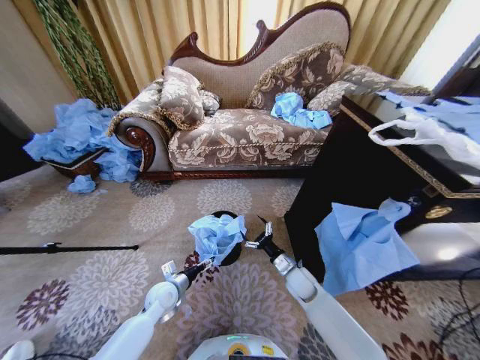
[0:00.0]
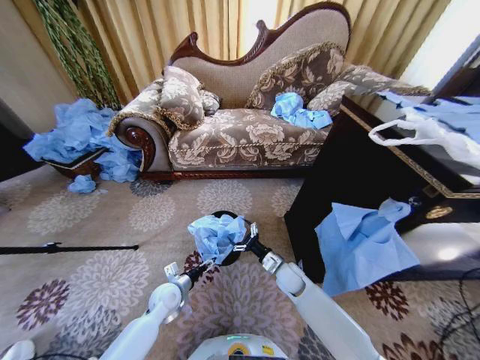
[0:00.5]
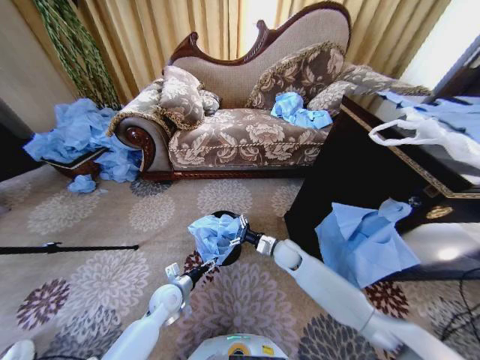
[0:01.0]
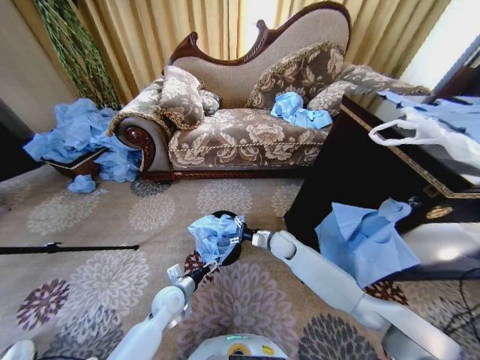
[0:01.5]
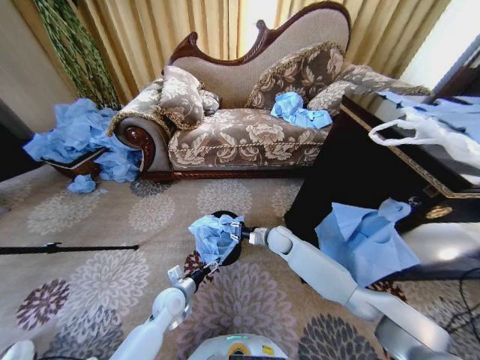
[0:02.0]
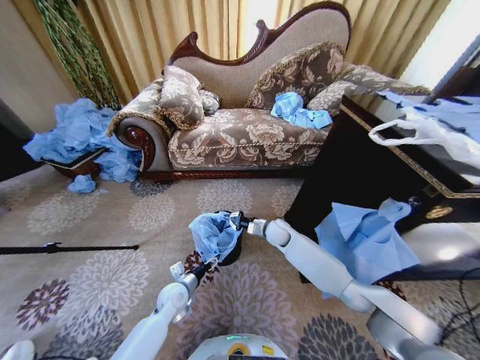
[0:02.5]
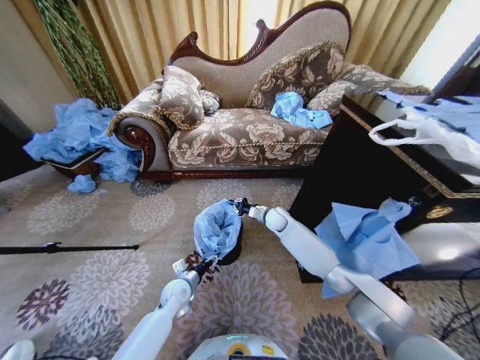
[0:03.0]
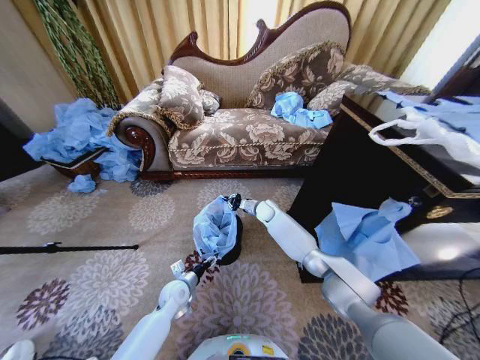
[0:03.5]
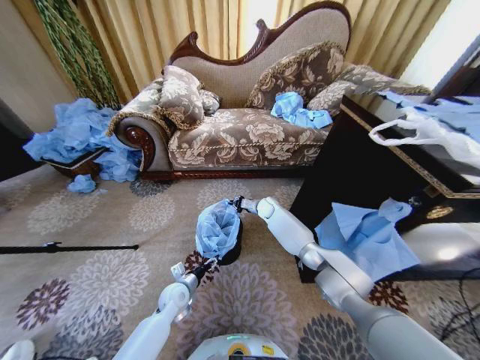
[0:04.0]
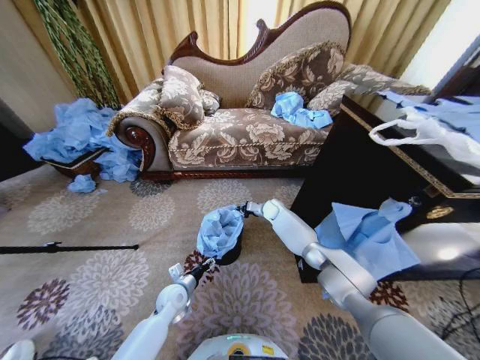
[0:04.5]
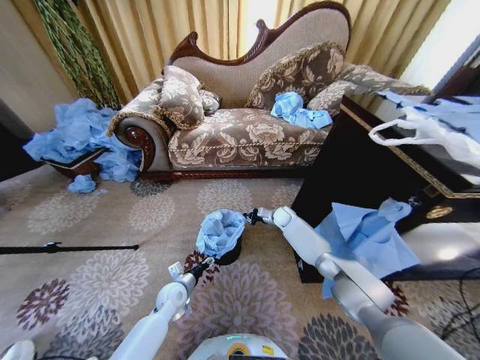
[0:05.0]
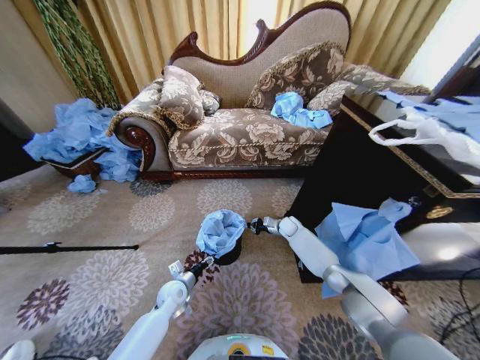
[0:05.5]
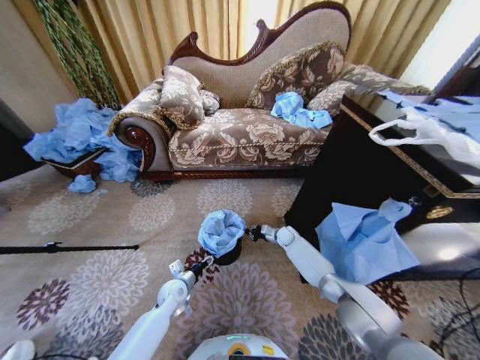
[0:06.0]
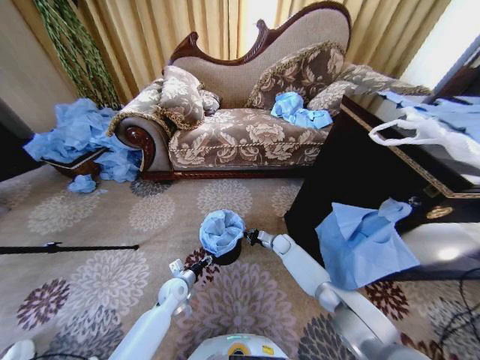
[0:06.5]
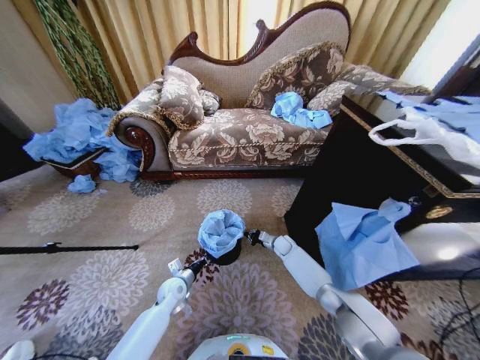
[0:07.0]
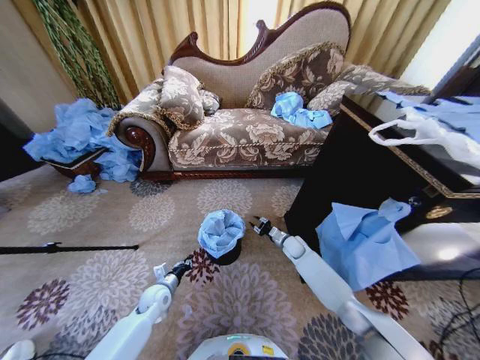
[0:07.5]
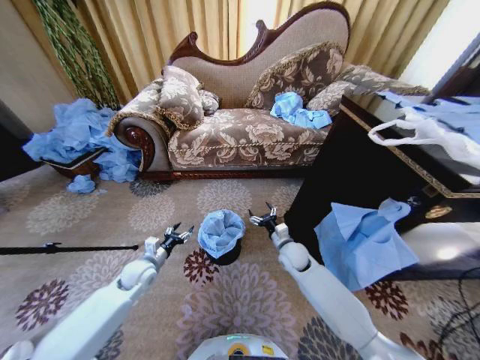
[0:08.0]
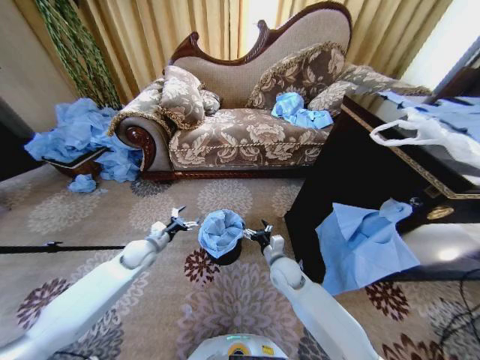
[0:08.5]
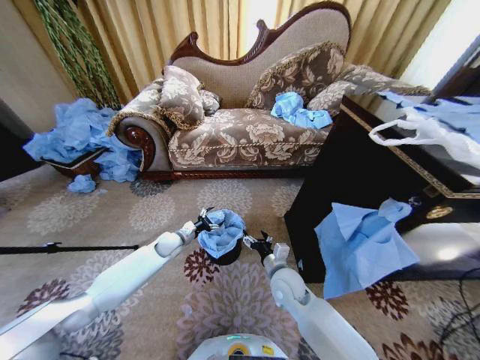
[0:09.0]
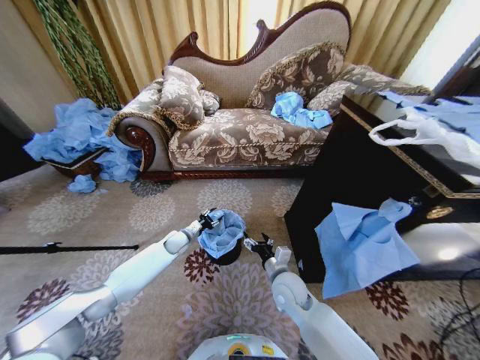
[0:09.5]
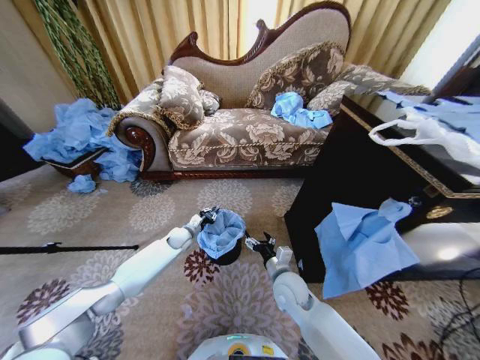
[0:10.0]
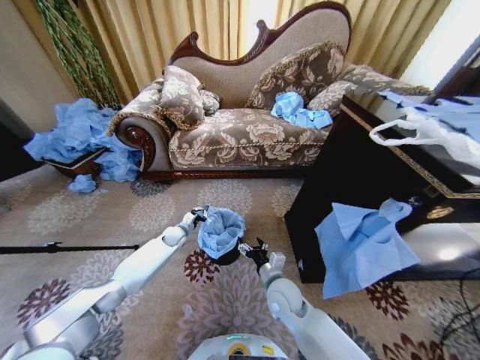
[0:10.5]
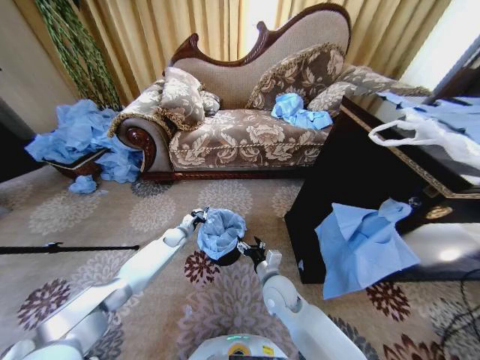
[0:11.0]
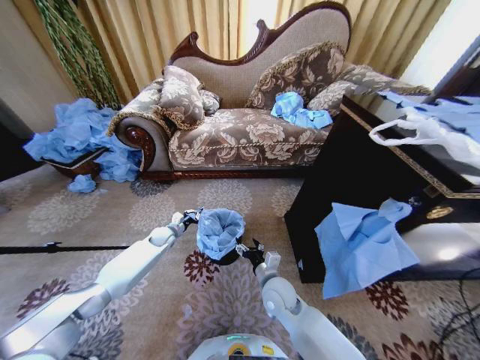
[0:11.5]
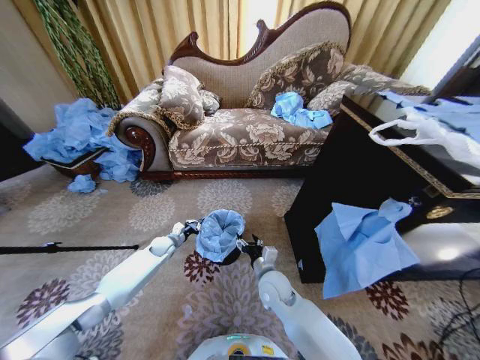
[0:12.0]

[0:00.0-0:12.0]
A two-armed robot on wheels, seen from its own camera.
Task of the whole recording: Place a garbage bag over the trash bin.
0:00.0 to 0:02.0: The right gripper heads forward, upward and to the left, covering approximately 15 cm, and closes.
0:02.0 to 0:04.0: The right gripper travels forward by some 15 cm.
0:04.0 to 0:06.0: The right gripper travels downward, to the right and backward by some 15 cm.
0:06.0 to 0:08.0: The right gripper travels backward and upward by roughly 15 cm, and opens up. The left gripper is displaced upward and to the left by some 15 cm, and closes, then reopens.
0:08.0 to 0:10.0: The left gripper shifts roughly 15 cm forward and to the right, and closes. The right gripper is displaced backward by some 10 cm.
0:10.0 to 0:12.0: The left gripper shifts roughly 10 cm to the left.

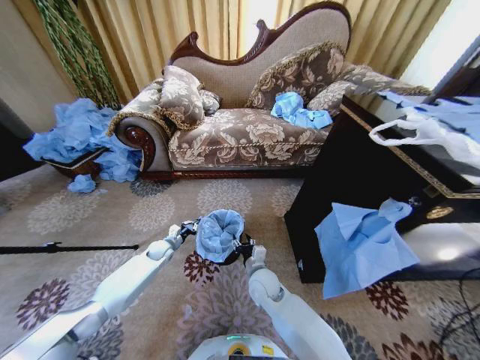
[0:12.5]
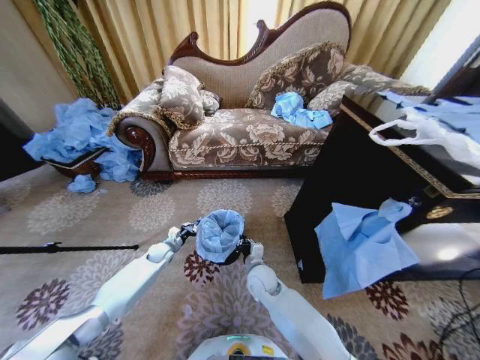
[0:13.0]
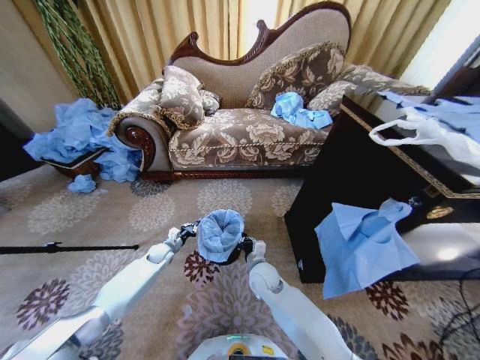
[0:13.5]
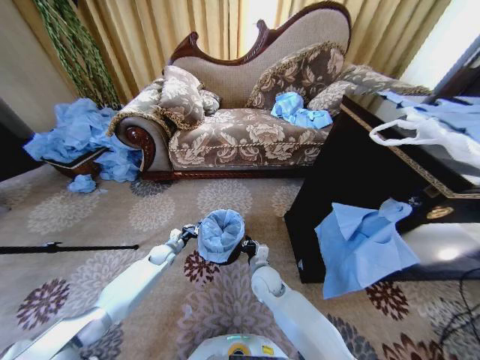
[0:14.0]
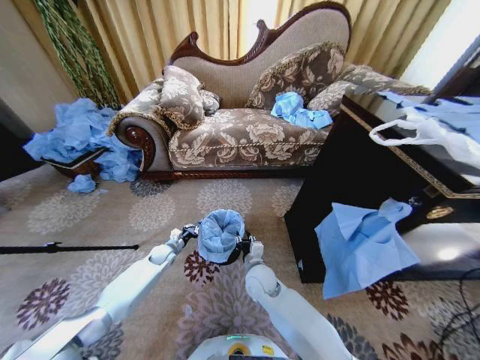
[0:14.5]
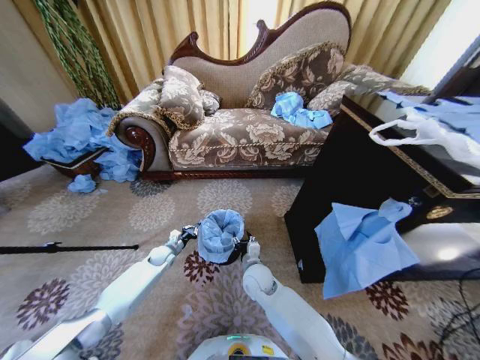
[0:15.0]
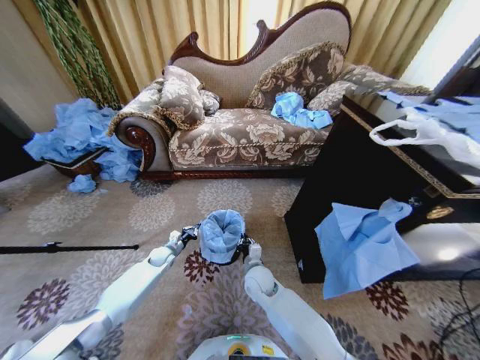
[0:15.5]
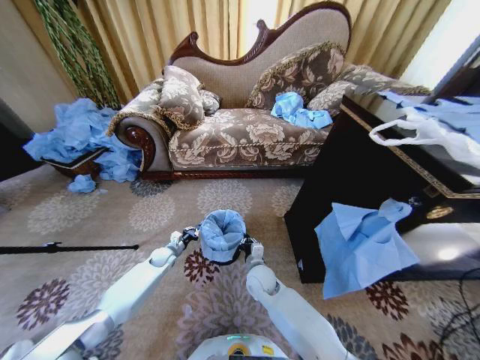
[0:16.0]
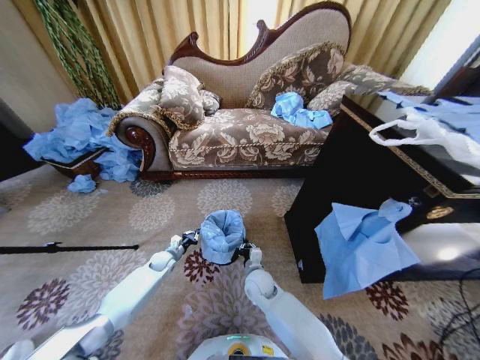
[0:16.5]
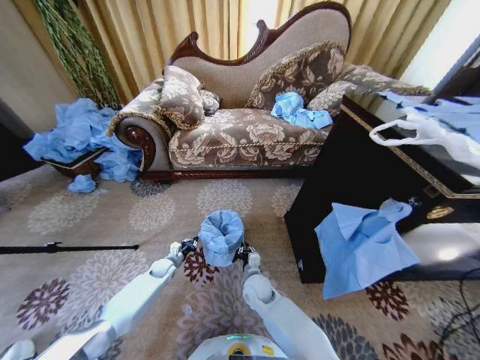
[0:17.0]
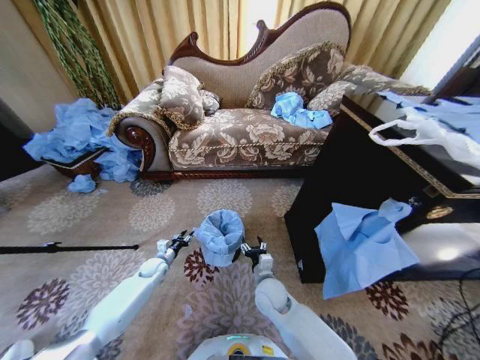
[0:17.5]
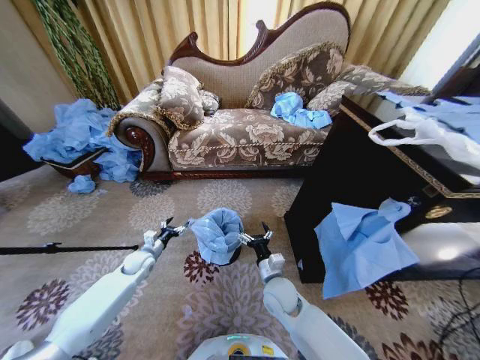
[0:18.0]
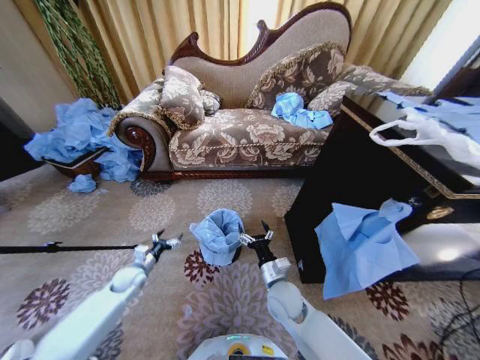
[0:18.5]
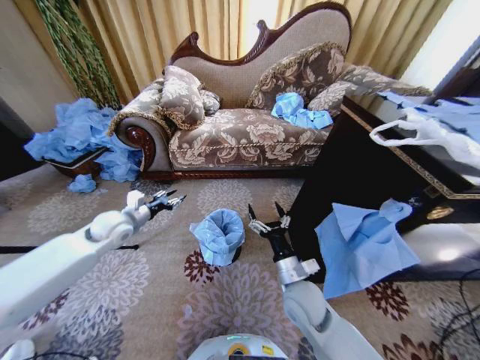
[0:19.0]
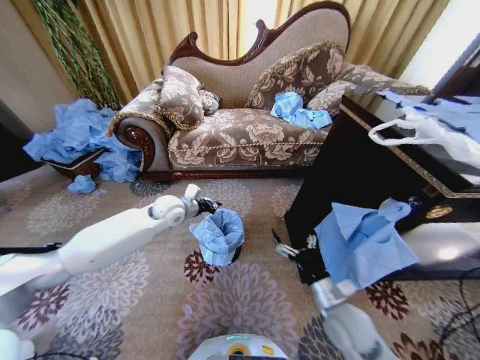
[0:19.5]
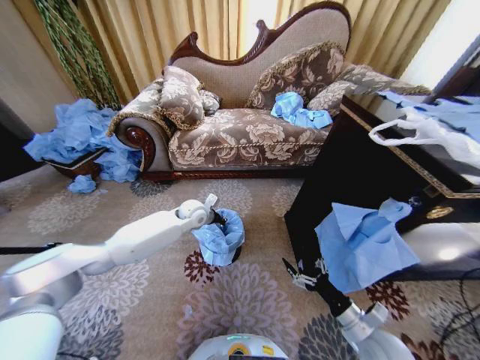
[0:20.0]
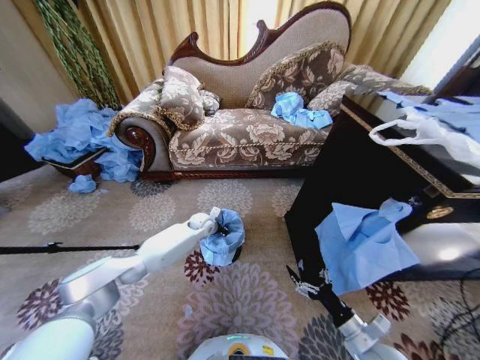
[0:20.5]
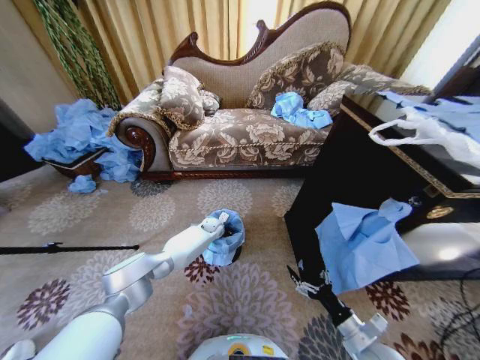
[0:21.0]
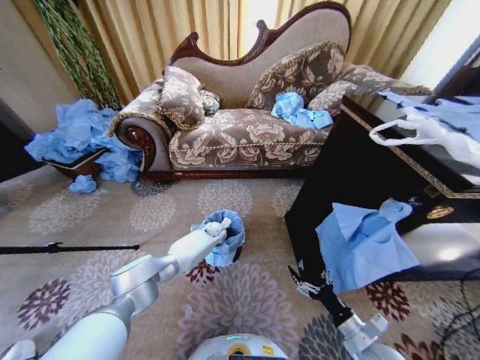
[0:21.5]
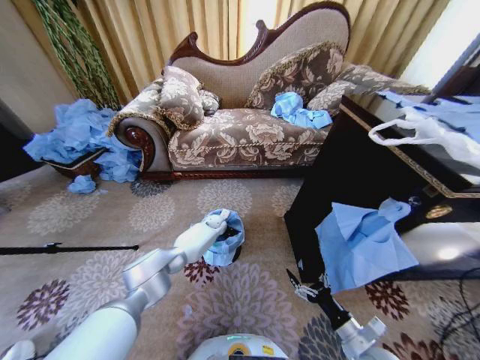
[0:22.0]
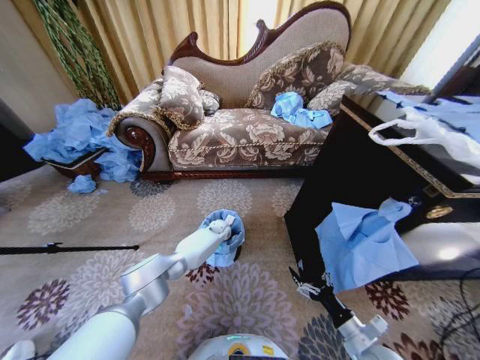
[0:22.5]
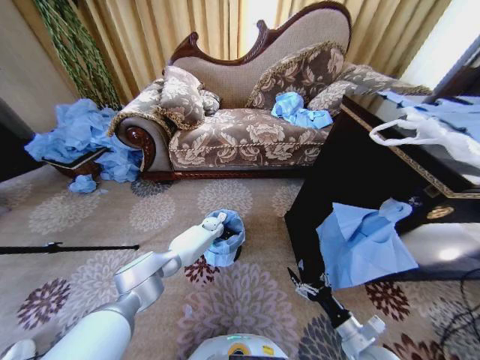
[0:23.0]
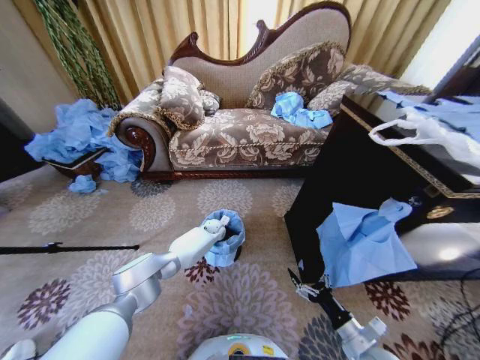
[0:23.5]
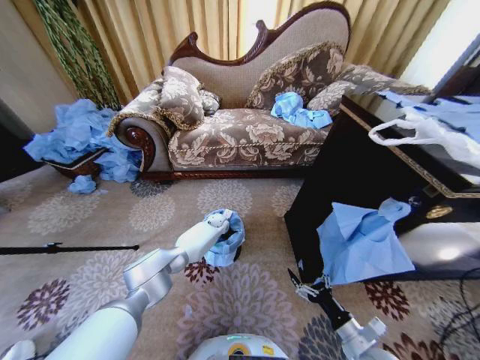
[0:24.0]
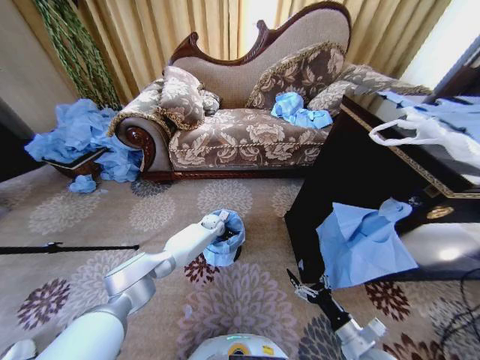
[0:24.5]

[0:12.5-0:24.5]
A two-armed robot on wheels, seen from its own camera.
Task of the whole recording: Place a garbage bag over the trash bin.
0:12.5 to 0:14.5: The right gripper closes, then reopens.
0:14.5 to 0:16.5: The right gripper travels downward by approximately 5 cm, and closes.
0:16.5 to 0:18.5: The right gripper goes roughly 10 cm upward, to the right and backward, and opens its fingers. Meanwhile the left gripper moves backward, to the left and upward, approximately 15 cm, and opens its fingers.
0:18.5 to 0:20.5: The left gripper heads to the right and forward, covering roughly 30 cm, reaches roughly 25 cm upward, then returns, and closes; the right gripper shifts roughly 25 cm to the right and backward.
0:20.5 to 0:22.5: The left gripper moves downward and to the right, roughly 10 cm.
0:22.5 to 0:24.5: The left gripper opens.

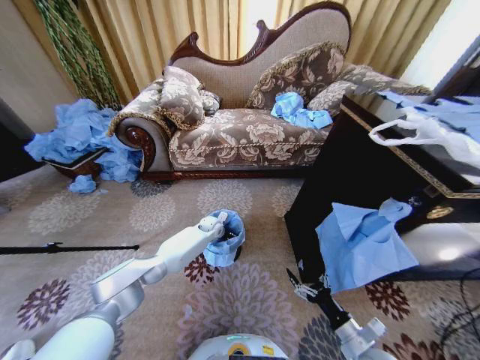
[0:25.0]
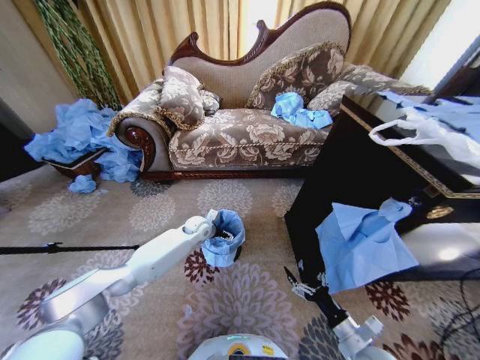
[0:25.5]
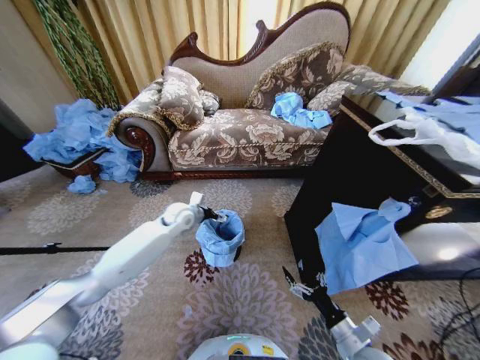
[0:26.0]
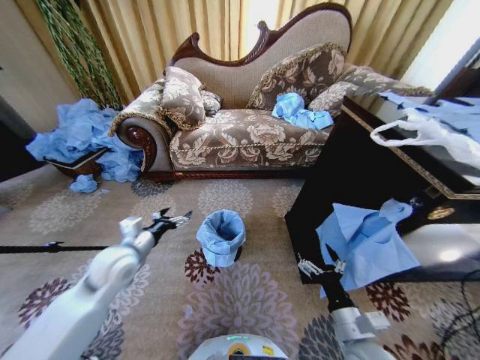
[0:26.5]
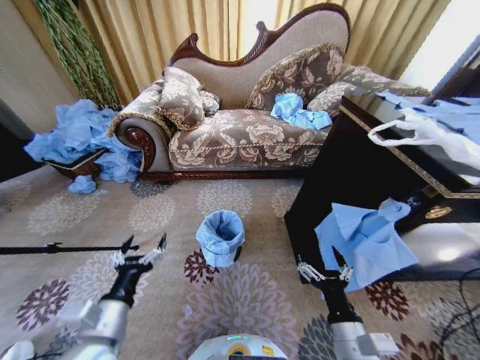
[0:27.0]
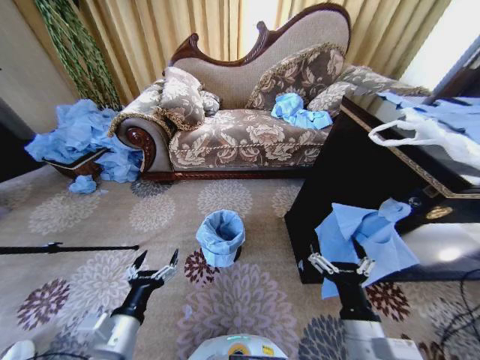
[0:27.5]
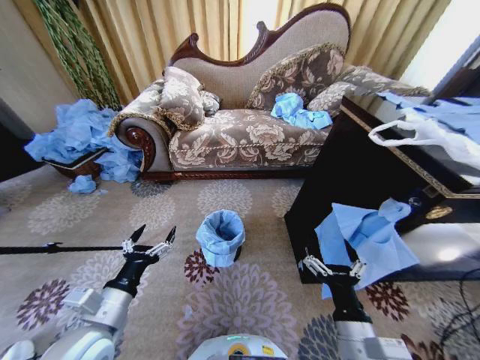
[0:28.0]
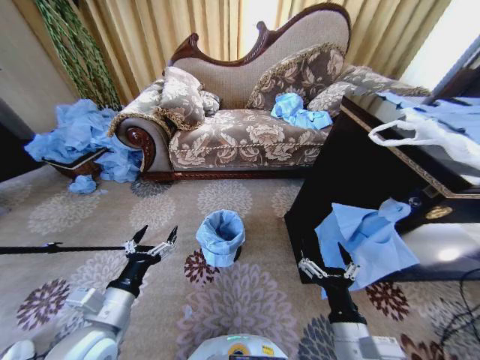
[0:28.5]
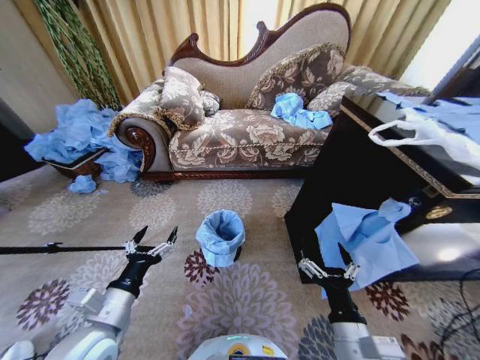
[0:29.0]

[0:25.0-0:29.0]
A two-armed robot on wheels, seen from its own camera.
Task of the whole recording: Place a garbage bag over the trash bin.
0:25.0 to 0:27.0: The left gripper is displaced backward by about 40 cm. Meanwhile the right gripper heads upward and to the left, covering roughly 15 cm.
0:27.0 to 0:29.0: There are only small adjustments of the grippers.
